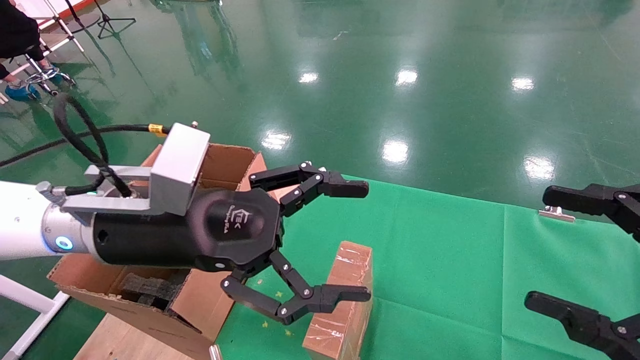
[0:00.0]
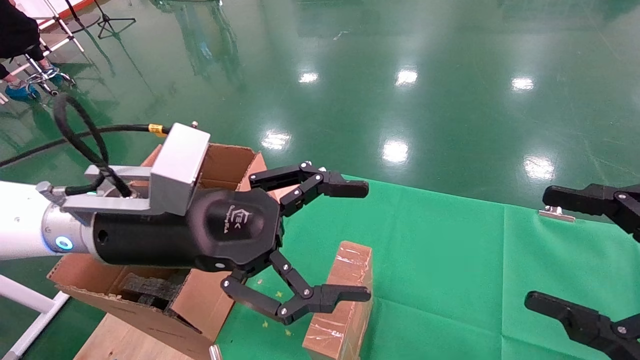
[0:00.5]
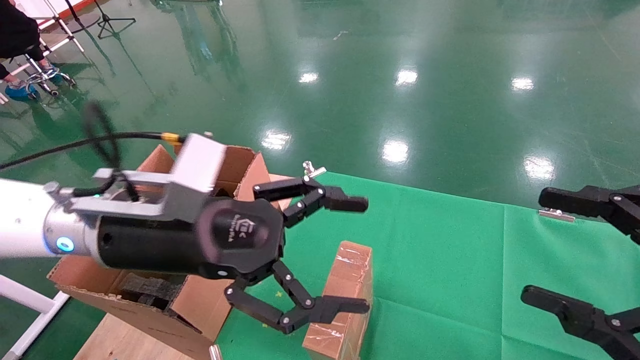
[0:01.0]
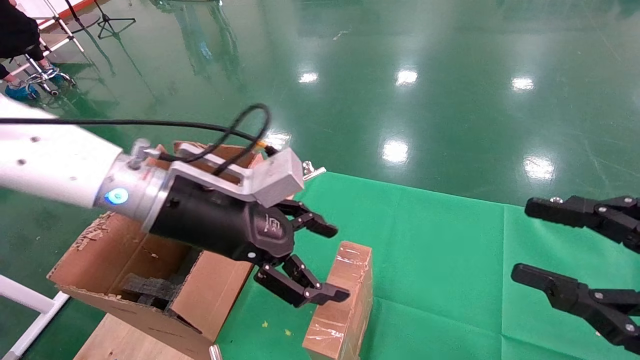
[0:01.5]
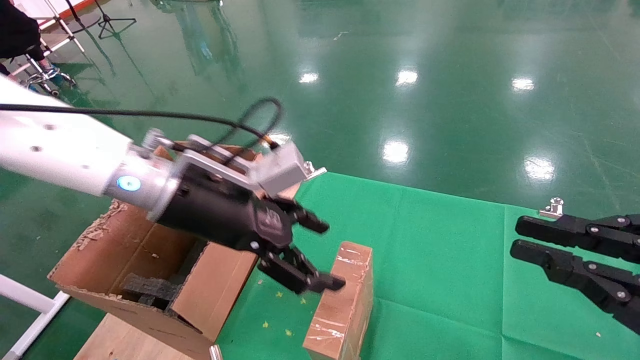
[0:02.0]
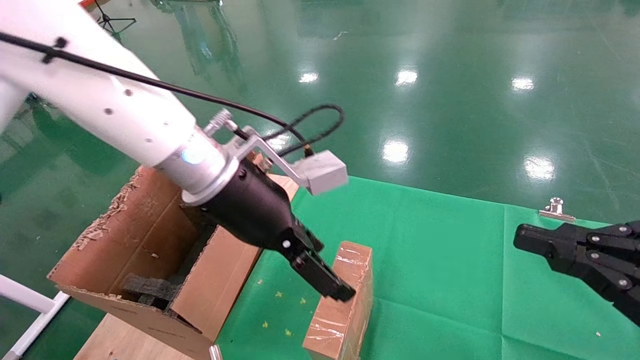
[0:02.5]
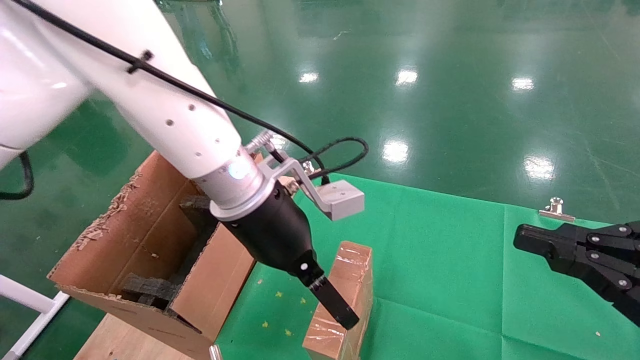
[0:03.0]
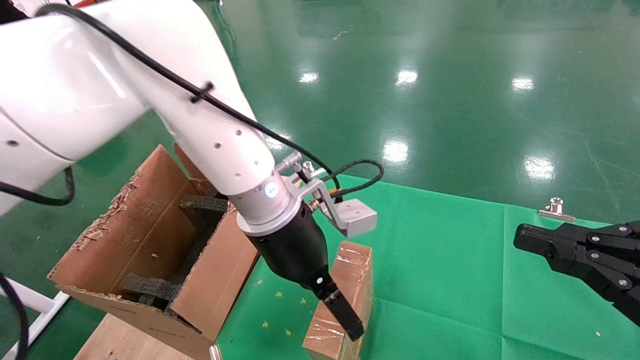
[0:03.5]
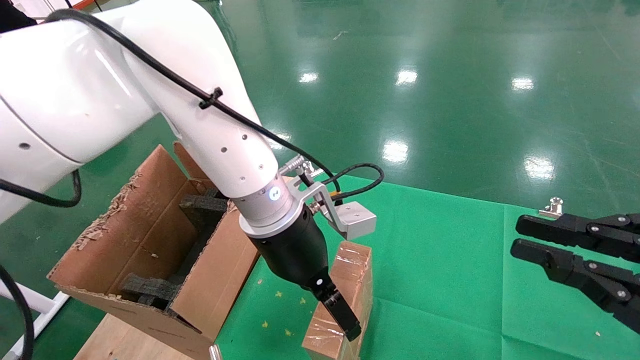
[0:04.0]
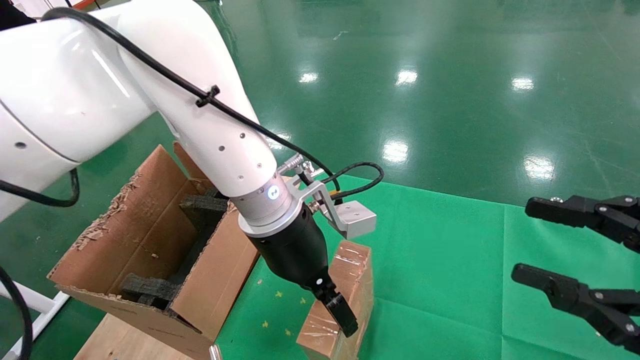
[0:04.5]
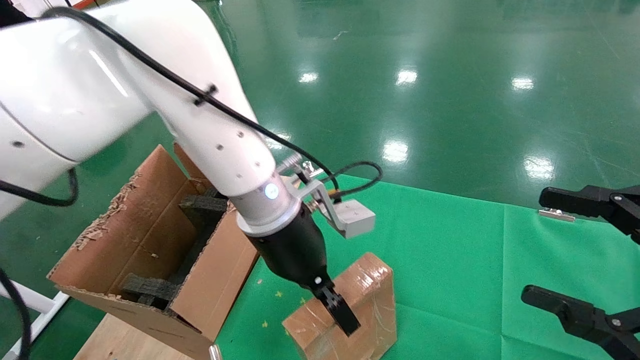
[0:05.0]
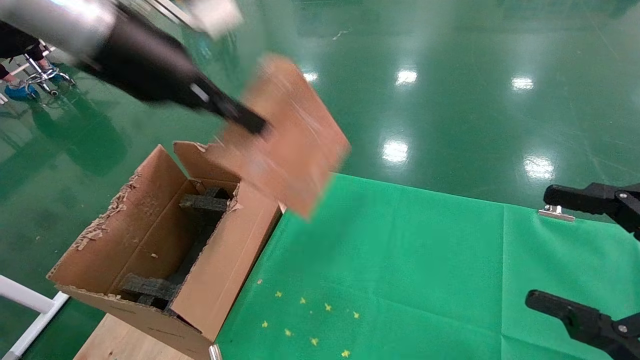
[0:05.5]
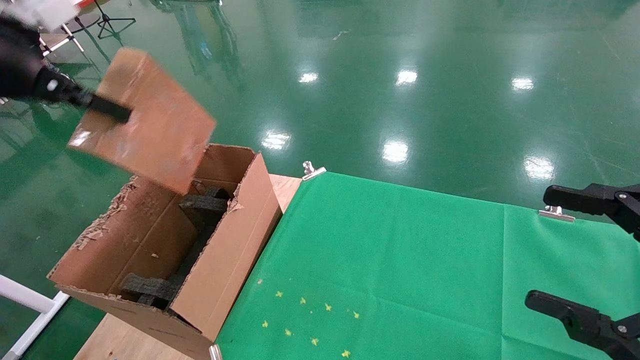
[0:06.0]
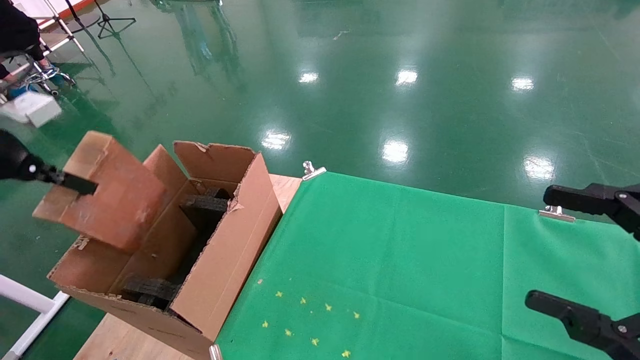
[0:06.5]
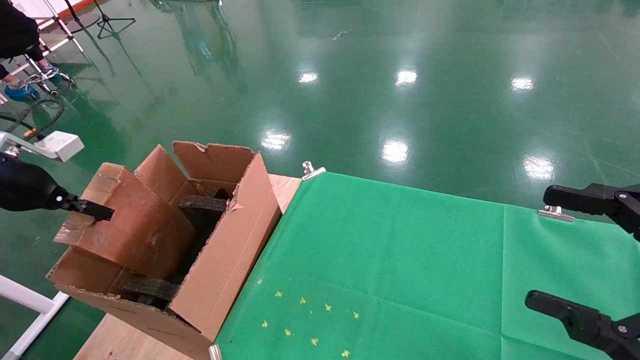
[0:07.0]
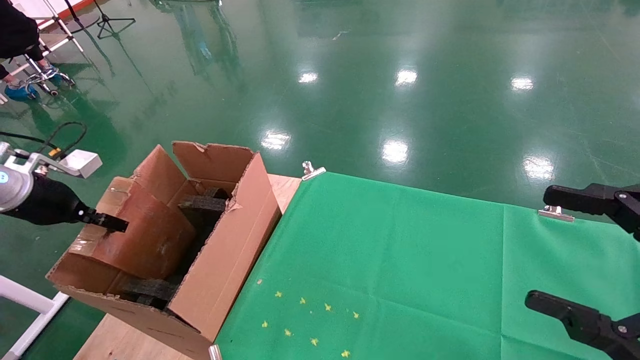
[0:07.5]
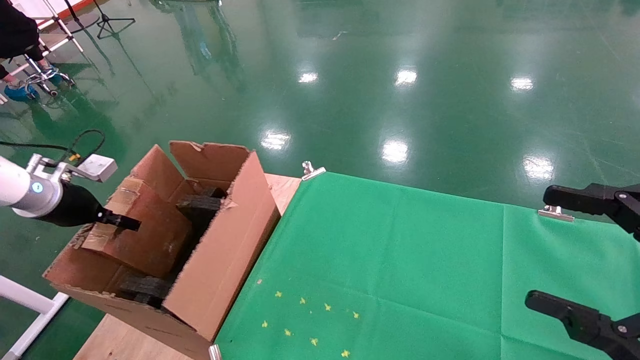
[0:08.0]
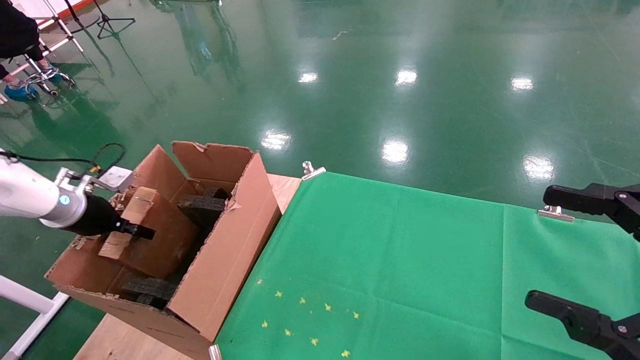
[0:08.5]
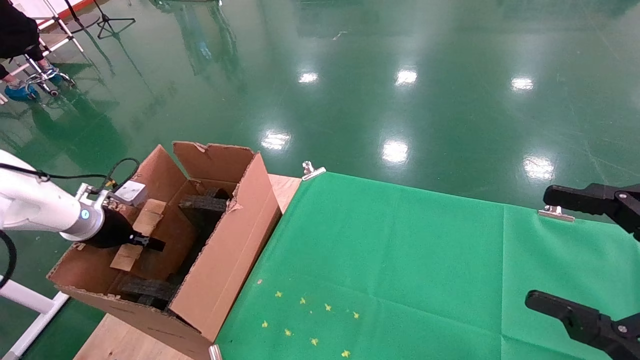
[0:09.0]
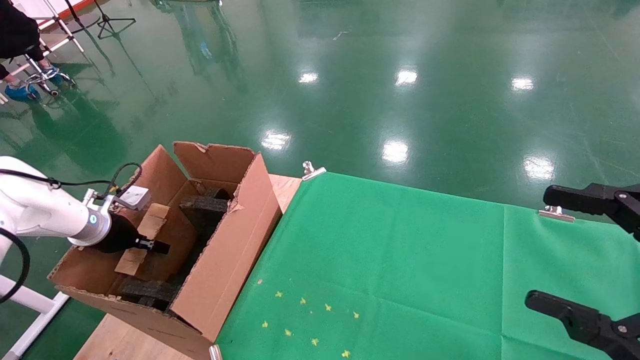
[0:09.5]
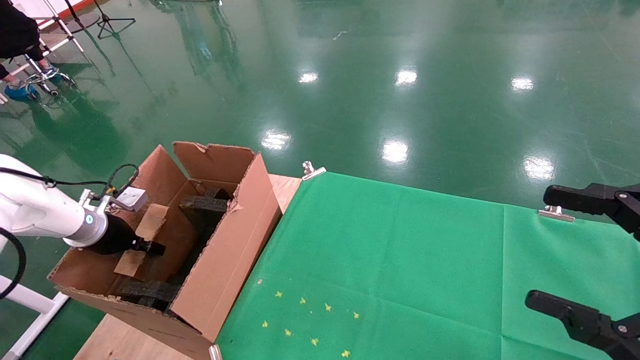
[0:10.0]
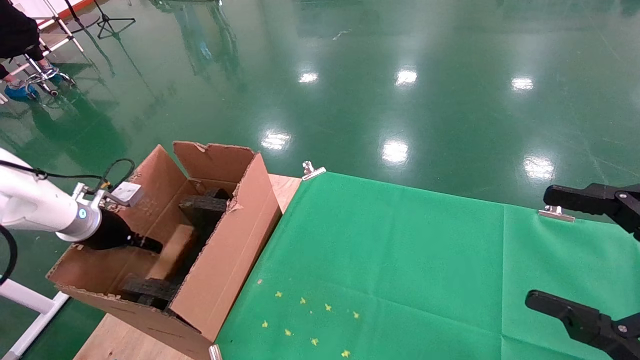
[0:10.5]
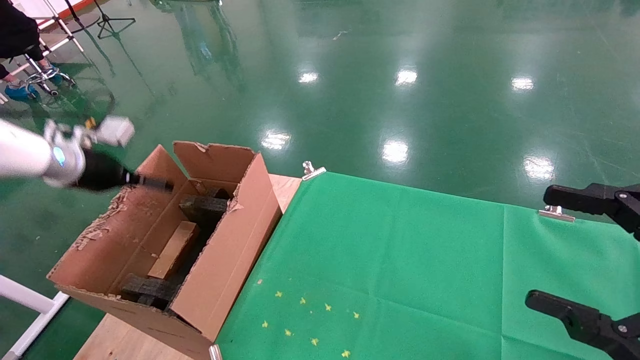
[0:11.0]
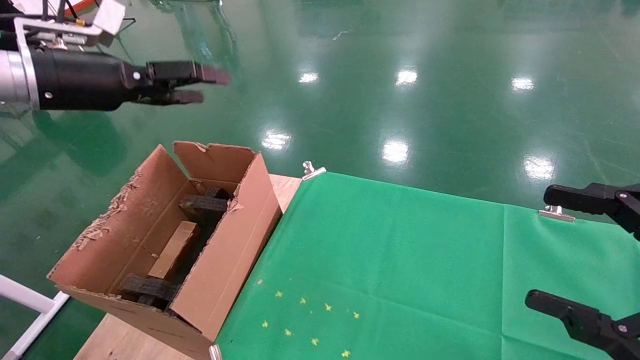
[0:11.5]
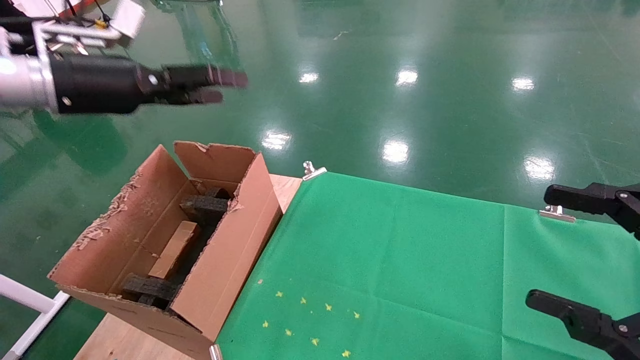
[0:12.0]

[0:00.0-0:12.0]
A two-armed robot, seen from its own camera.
Task of the whole recording: using a robotic arm to pick up a cardboard box and palace it the carton.
Step, 0:01.5 to 0:04.5: Pick up the mouse and the power cord paper box.
Step, 0:05.0 to 0:11.0: Place the mouse and the power cord paper box into the container.
0:00.0 to 0:02.0: The left gripper heads forward, covering about 5 cm, while the right gripper closes up.
0:02.0 to 0:04.0: The left gripper shifts roughly 10 cm to the right.
0:04.0 to 0:06.0: The right gripper opens up, while the left gripper heads to the left and upward, covering approximately 35 cm, and closes.
0:06.0 to 0:08.0: The left gripper goes approximately 30 cm downward, to the left and forward.
0:08.0 to 0:10.0: The left gripper moves downward, some 5 cm.
0:10.0 to 0:12.0: The left gripper shifts about 25 cm upward and to the right, and opens.

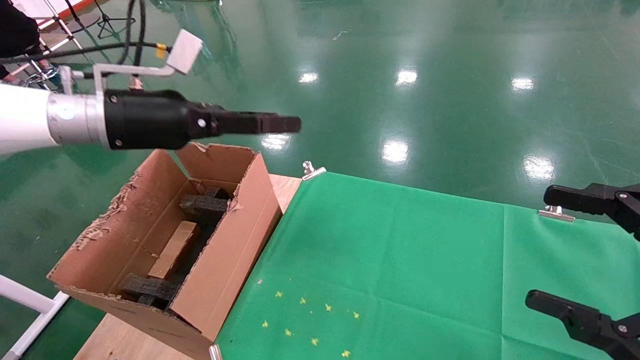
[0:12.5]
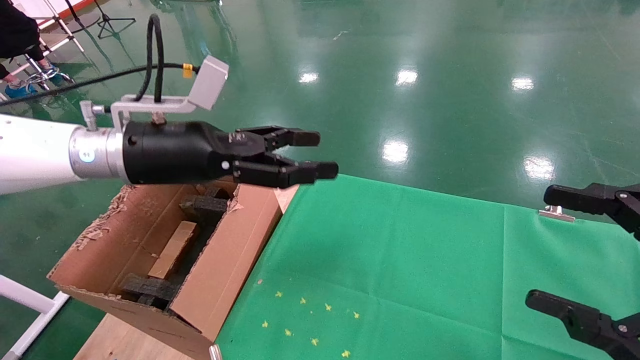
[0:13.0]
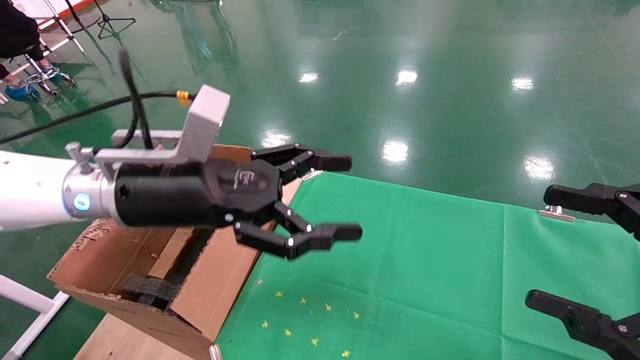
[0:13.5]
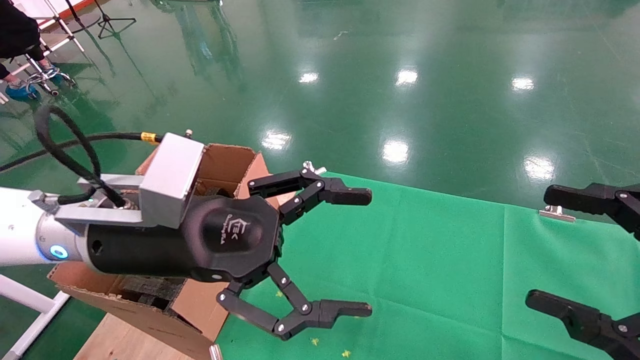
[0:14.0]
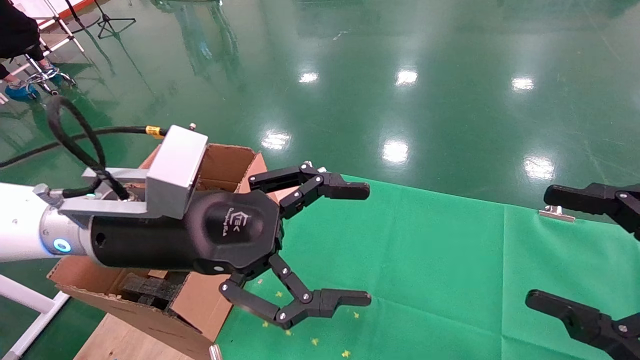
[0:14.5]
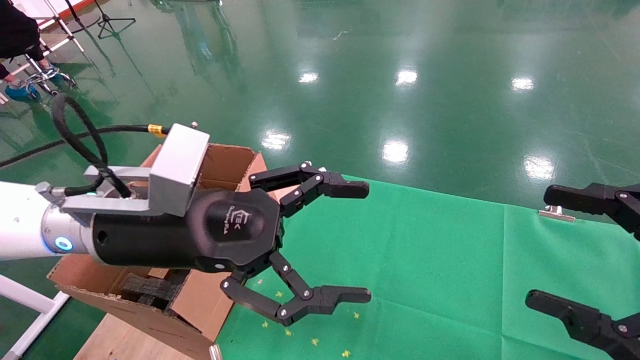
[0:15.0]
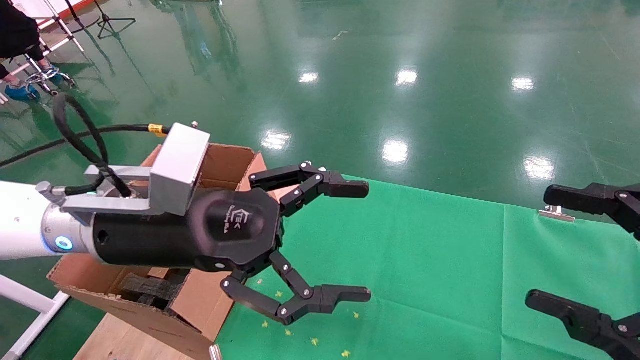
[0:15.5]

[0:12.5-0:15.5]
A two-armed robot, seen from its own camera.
Task of the whole recording: using a robotic arm to pick up a cardboard box and palace it the carton.
0:12.5 to 0:14.0: The left gripper moves backward, to the right and downward, approximately 15 cm.
0:14.0 to 0:15.5: Both grippers stay about where they are.
